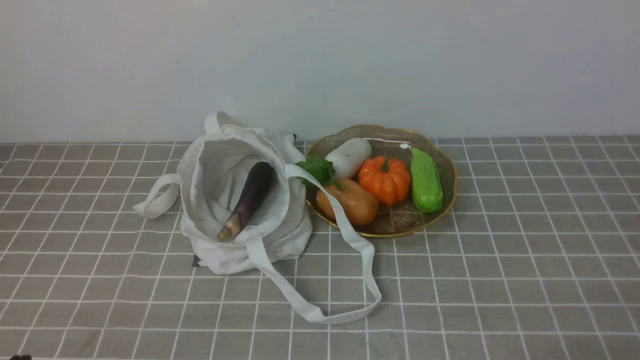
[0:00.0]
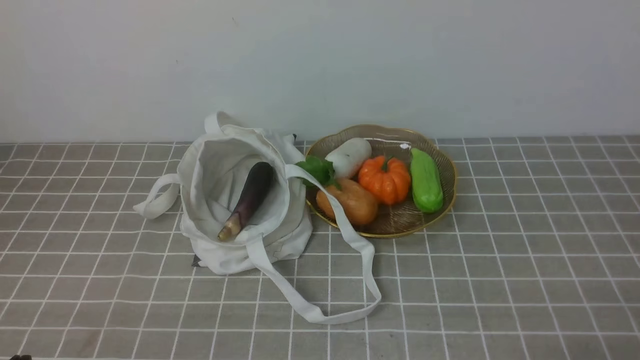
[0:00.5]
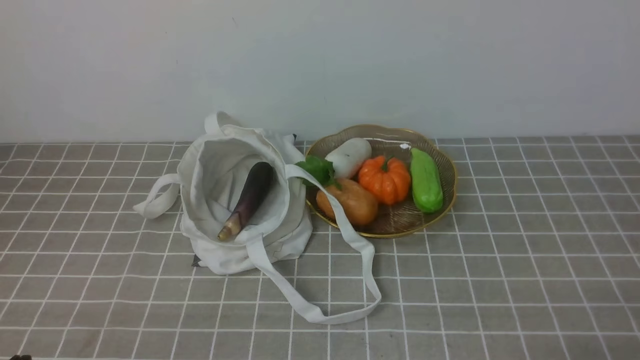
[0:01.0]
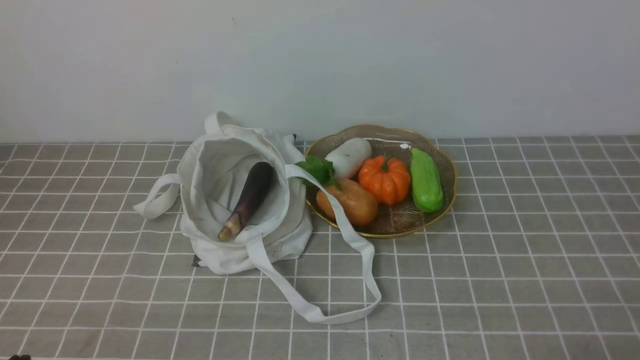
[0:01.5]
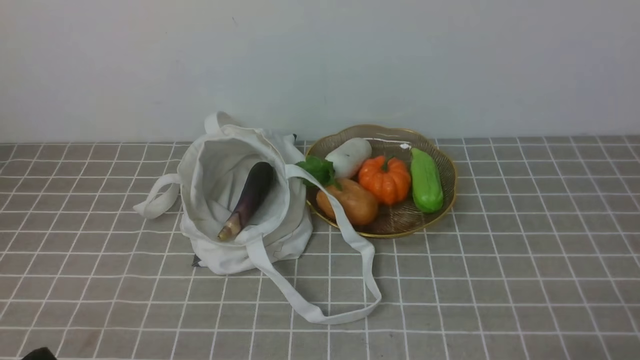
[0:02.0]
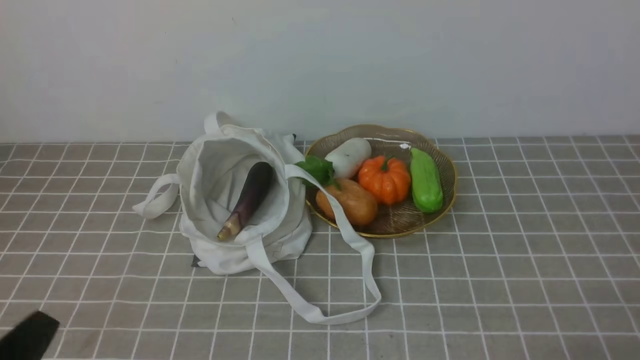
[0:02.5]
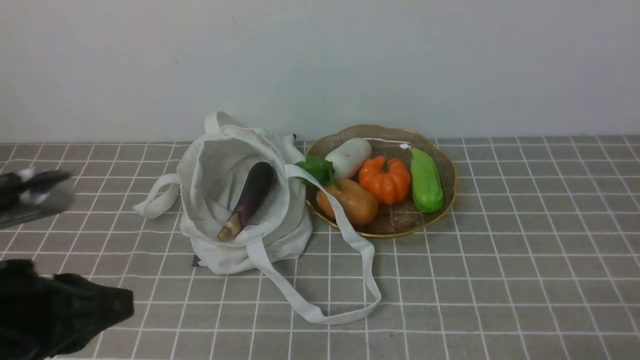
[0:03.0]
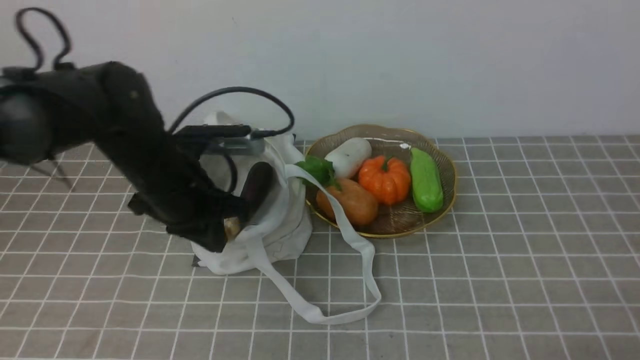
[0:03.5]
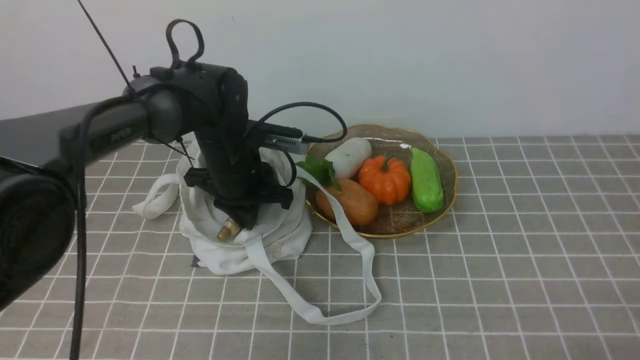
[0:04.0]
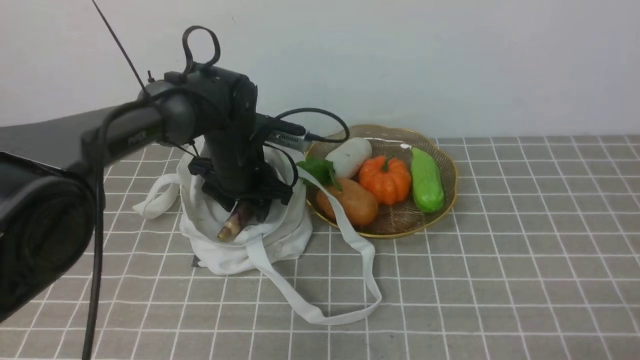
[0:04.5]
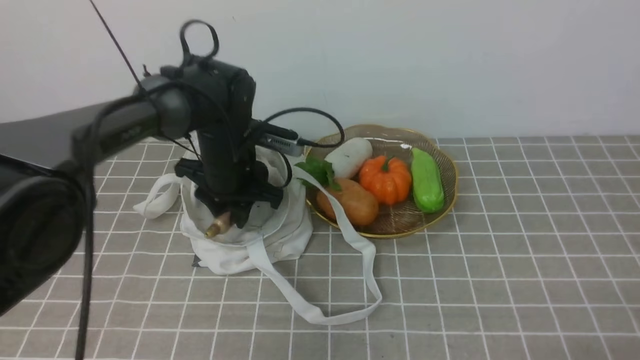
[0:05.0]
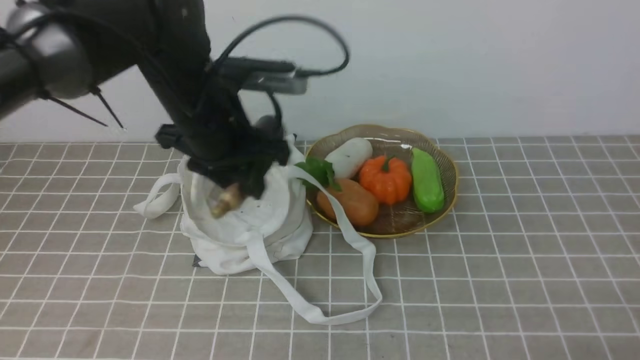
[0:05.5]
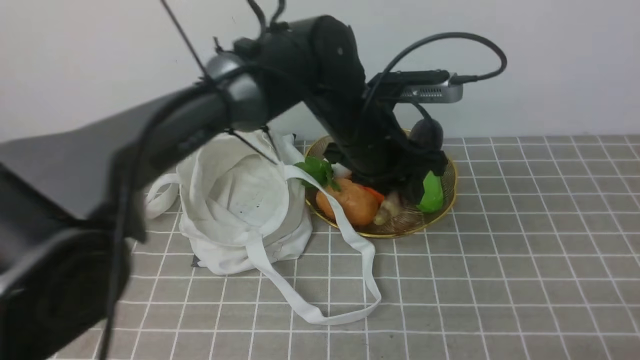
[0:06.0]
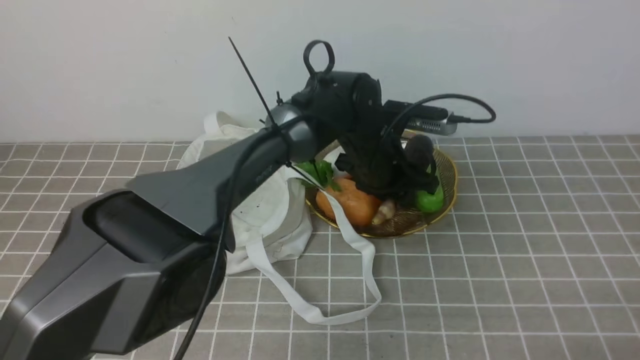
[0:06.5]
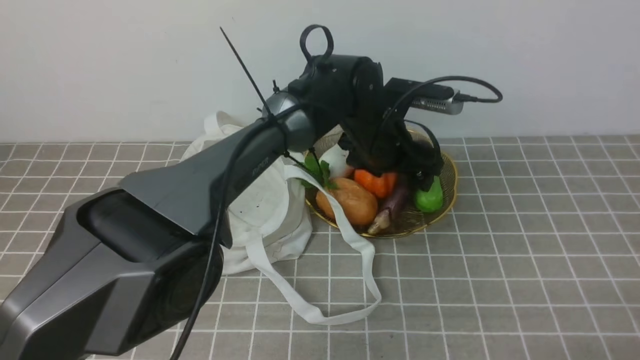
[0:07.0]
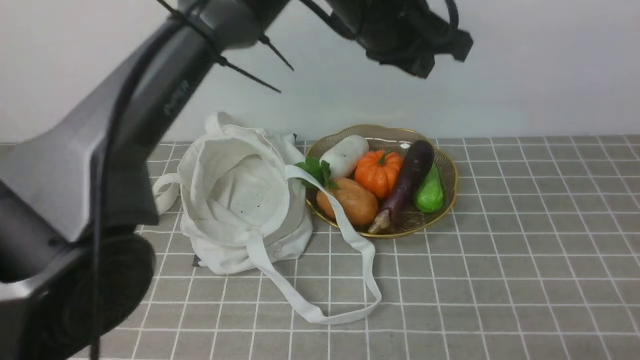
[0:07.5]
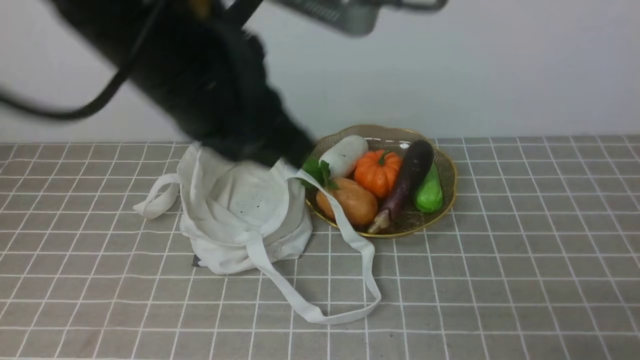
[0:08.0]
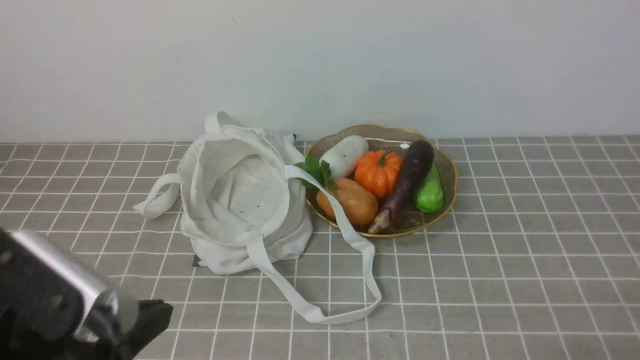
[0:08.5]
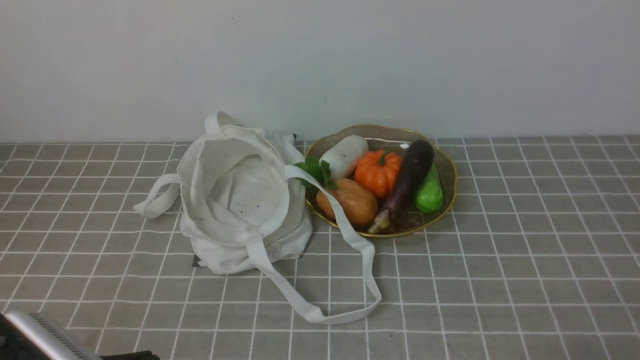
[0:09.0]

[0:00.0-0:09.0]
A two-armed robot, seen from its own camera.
Task of the whole recording: take vegetables from bag on grey coffee tablecloth place on plate.
Step, 0:00.0 to 0:04.5: Grasp the eggplant with left gripper.
Step, 0:05.0 to 0:07.0: Place the eggplant on the plate with left gripper.
0:02.0 to 0:04.5: The left gripper is displaced forward by roughly 40 cm, and opens.
0:04.5 to 0:07.0: The left gripper heads to the right, covering some 15 cm, and opens.
0:07.0 to 0:09.0: The left gripper heads backward and to the left, covering about 40 cm, and closes its fingers.

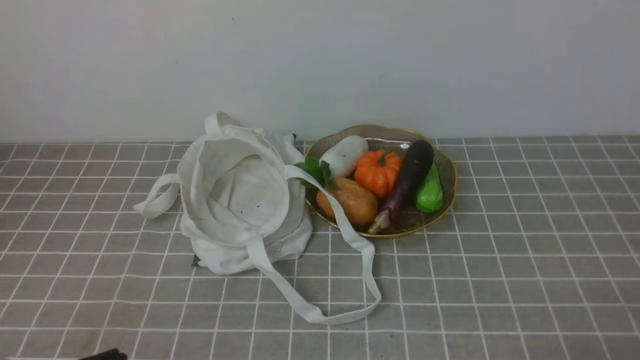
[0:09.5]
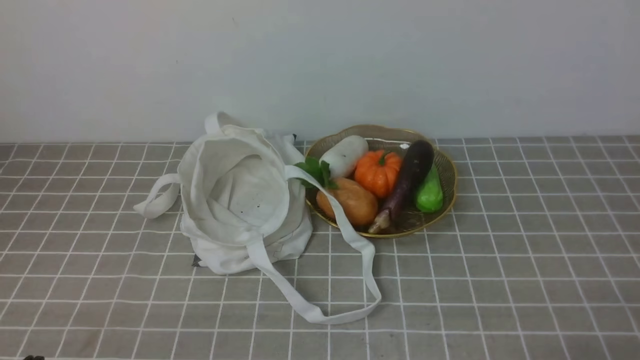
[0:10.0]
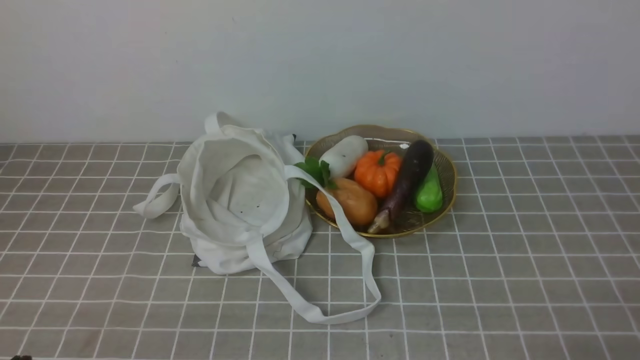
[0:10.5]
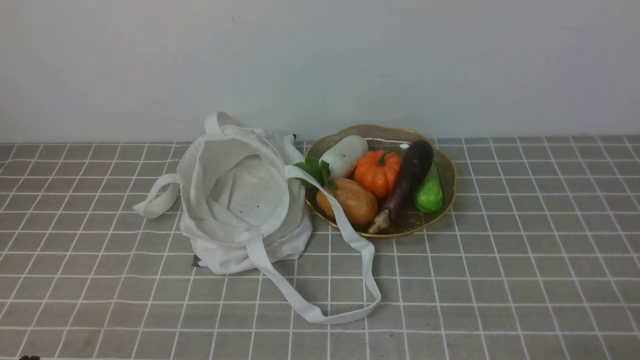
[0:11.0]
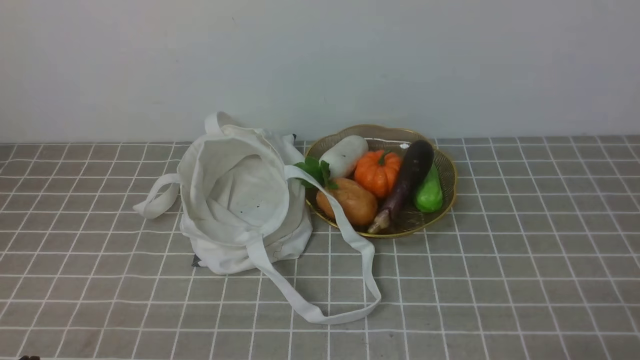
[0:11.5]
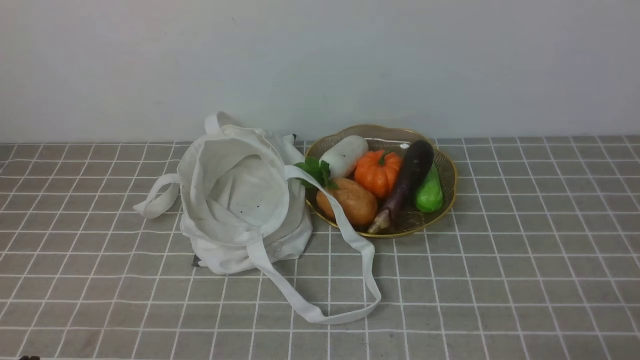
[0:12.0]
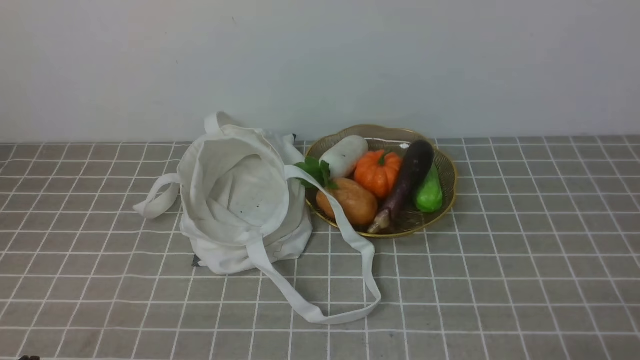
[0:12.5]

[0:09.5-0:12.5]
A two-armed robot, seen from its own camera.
Task of the whole recording: take vegetables from bag on grey coffee tablecloth place on plate.
0:11.0 to 0:12.5: Both grippers stay about where they are.
